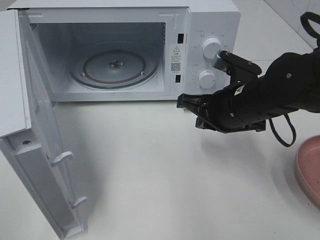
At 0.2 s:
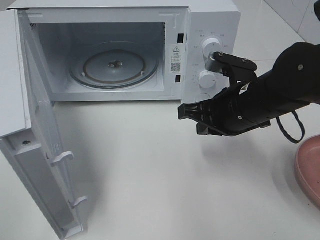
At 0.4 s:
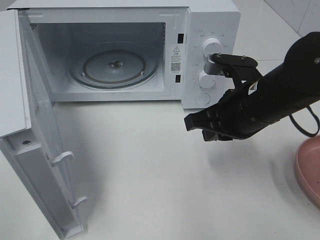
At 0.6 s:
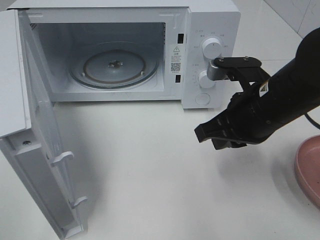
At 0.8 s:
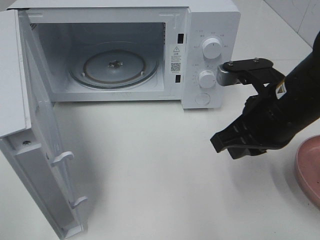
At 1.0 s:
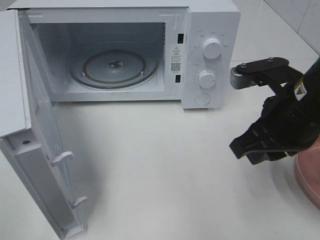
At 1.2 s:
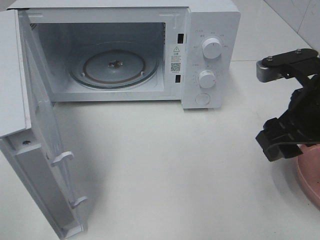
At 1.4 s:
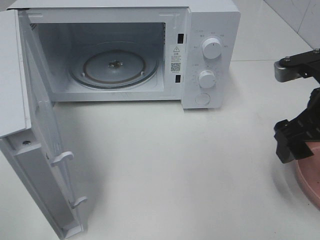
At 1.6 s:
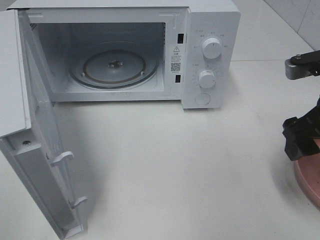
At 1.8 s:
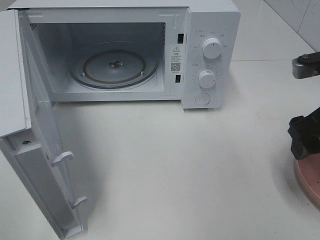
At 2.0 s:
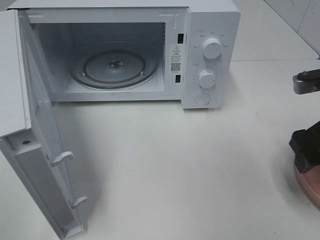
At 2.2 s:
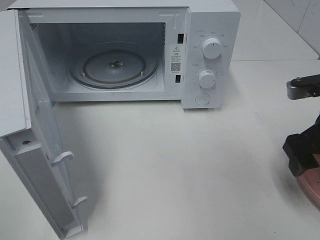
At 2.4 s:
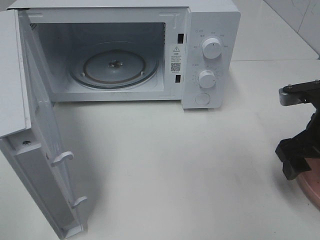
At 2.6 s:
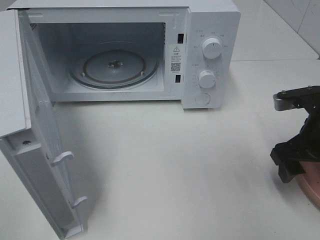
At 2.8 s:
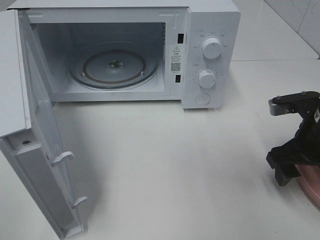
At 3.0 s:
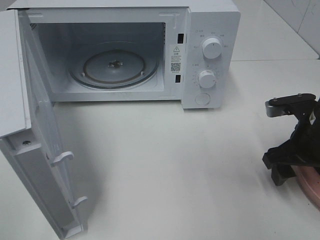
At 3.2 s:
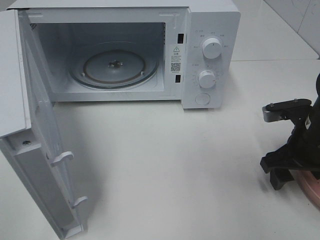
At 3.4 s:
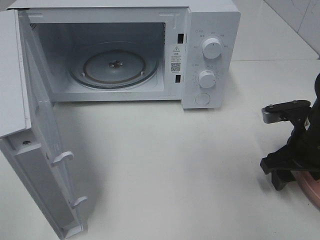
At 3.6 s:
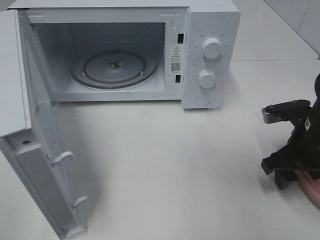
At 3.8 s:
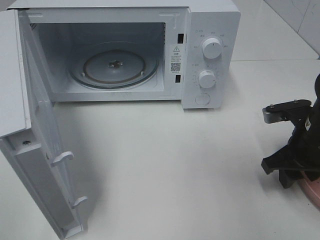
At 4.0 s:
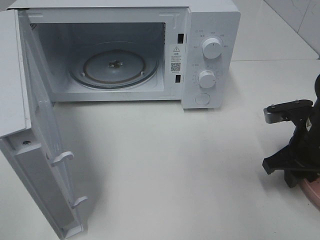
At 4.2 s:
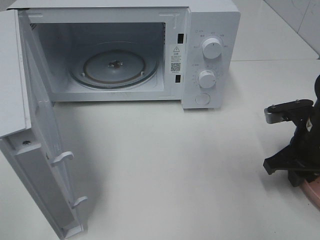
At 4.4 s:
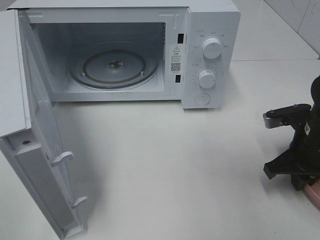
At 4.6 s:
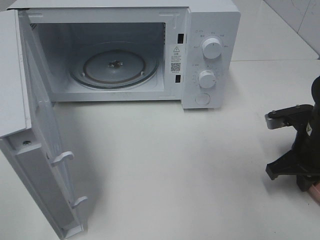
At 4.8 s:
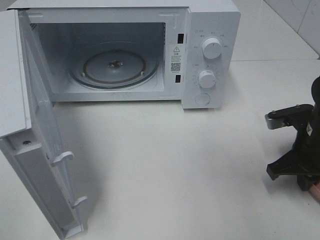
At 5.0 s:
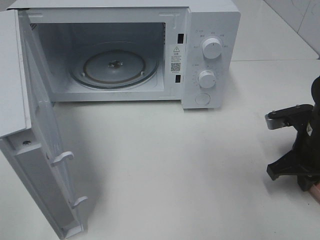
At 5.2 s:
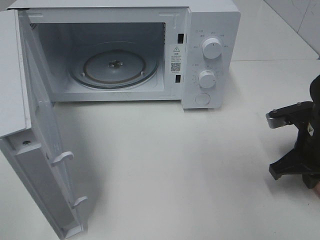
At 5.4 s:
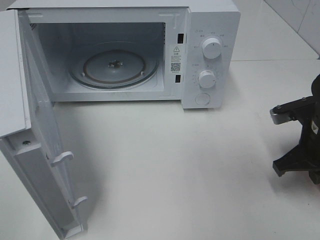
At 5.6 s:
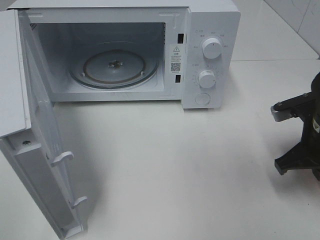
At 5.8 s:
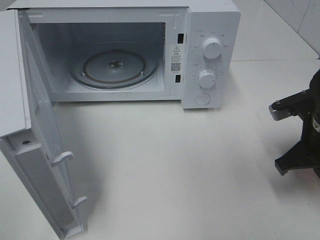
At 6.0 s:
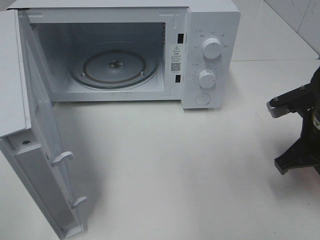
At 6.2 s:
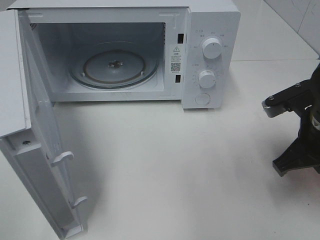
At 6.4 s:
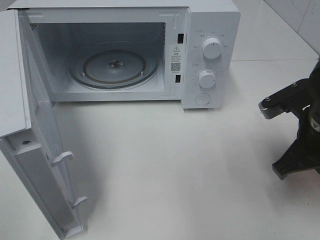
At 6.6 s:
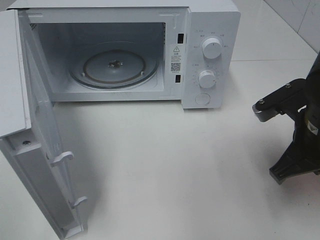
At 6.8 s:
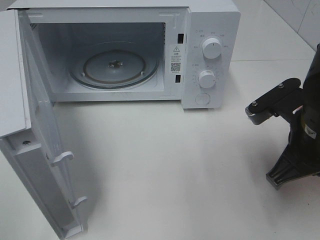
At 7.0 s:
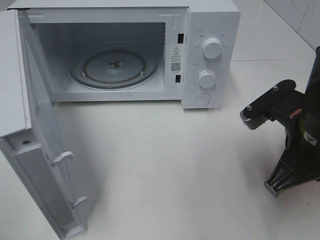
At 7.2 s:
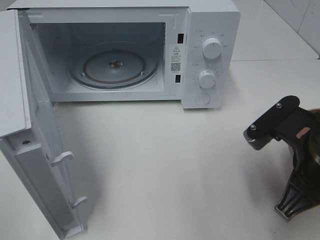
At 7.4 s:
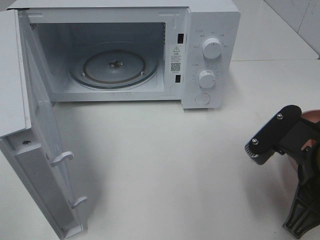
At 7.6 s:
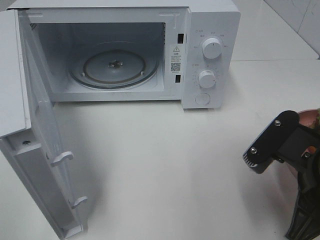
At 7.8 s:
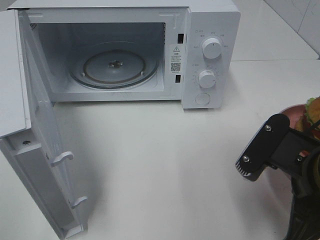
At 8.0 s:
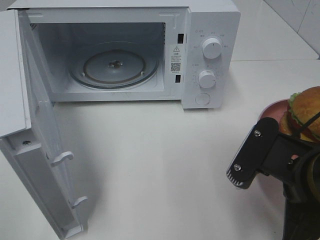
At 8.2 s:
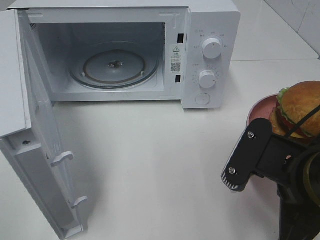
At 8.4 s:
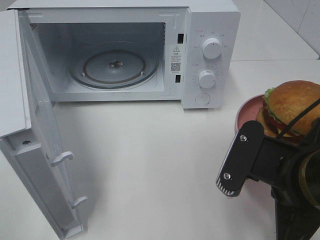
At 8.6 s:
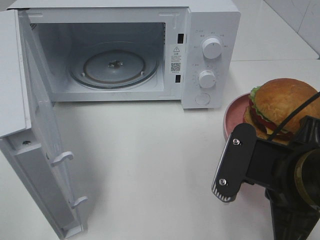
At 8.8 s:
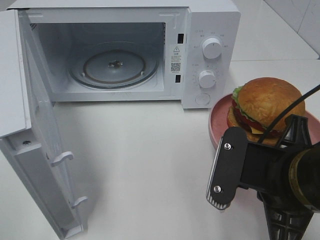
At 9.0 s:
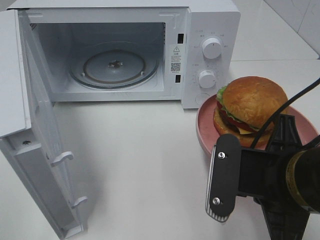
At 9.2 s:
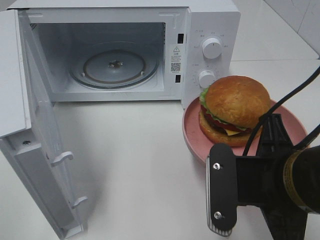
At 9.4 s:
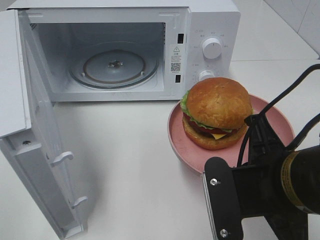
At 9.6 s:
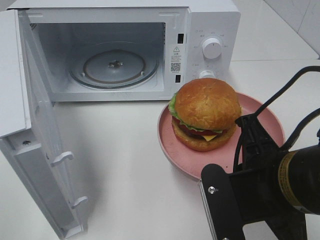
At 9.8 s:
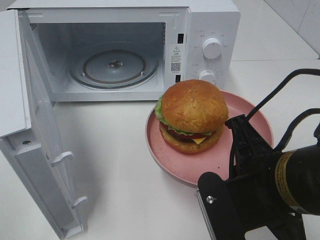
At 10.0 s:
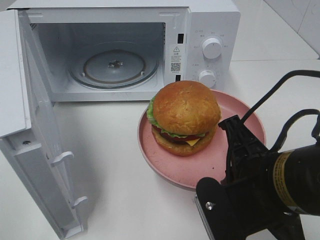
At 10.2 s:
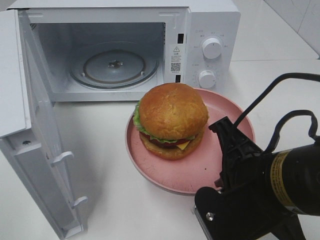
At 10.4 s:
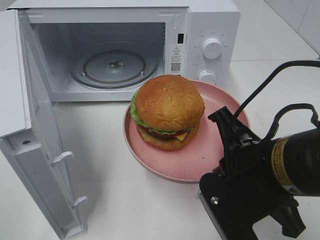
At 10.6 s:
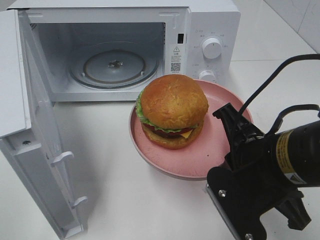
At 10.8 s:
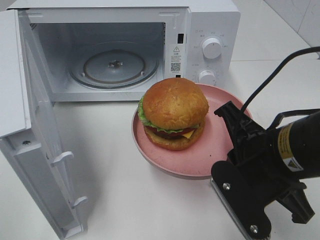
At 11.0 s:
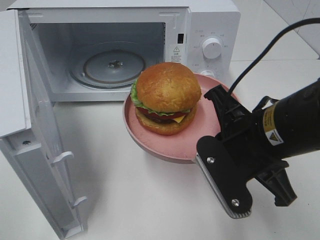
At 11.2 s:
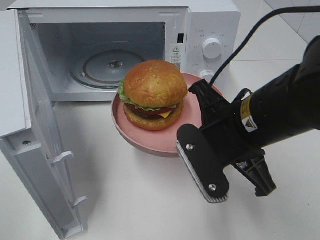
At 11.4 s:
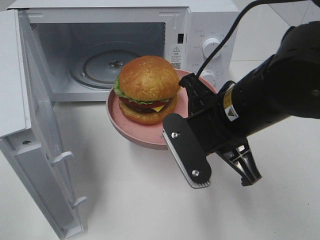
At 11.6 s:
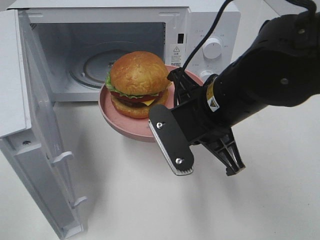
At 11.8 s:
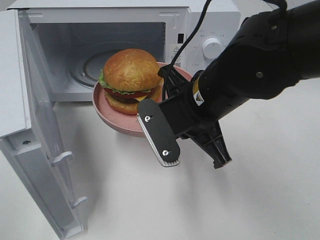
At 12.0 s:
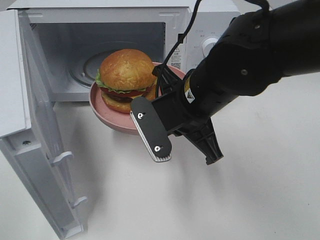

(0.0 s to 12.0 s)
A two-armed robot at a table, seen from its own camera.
Task of the whole recording: Heat the burger.
Step, 0.0 s - 5.0 s: Right hand: grab the plate with the hamburger.
0.0 s - 1.6 s: The right gripper is displaced to the right, upward and backward by about 15 cm, and opens up.
1.6 s - 3.0 s: The right gripper shifts roughly 10 cm downward.
3.0 s - 4.4 s: The right gripper closes.
4.4 s - 6.0 s: The right gripper ends up approximately 5 cm from where it was.
6.0 s - 7.6 s: The right gripper shifts about 10 cm backward and to the left.
10.4 s - 12.0 s: The right gripper shifts roughly 15 cm forward and to the left.

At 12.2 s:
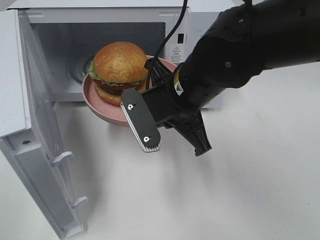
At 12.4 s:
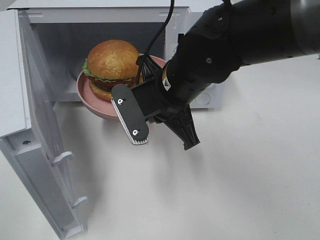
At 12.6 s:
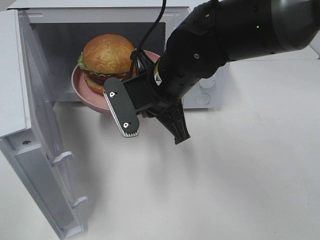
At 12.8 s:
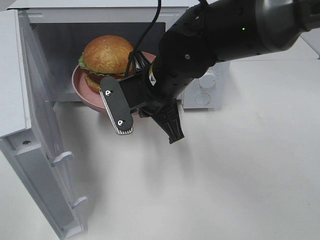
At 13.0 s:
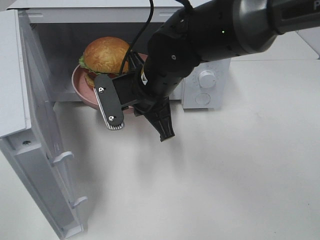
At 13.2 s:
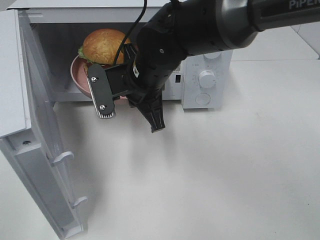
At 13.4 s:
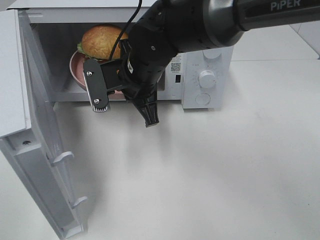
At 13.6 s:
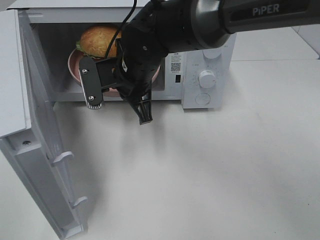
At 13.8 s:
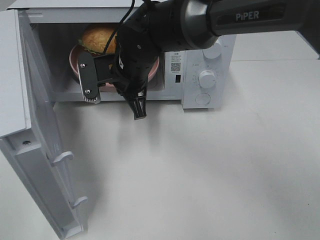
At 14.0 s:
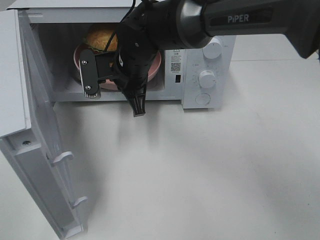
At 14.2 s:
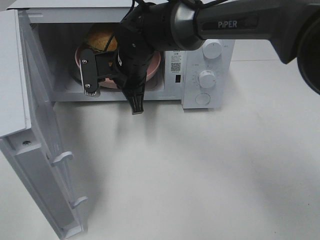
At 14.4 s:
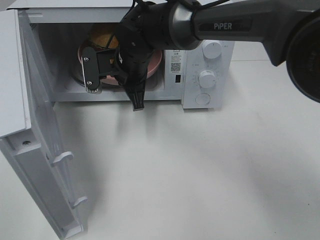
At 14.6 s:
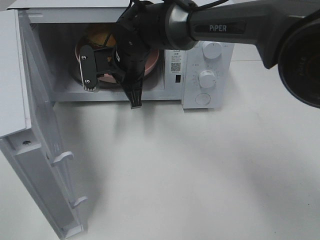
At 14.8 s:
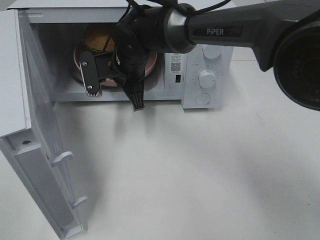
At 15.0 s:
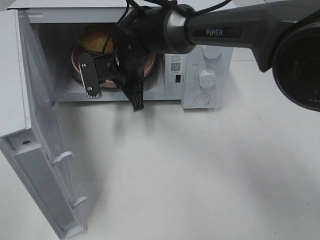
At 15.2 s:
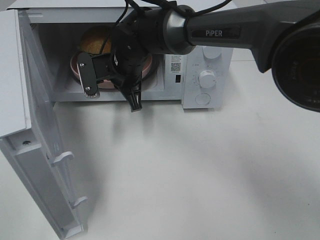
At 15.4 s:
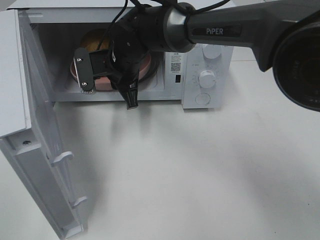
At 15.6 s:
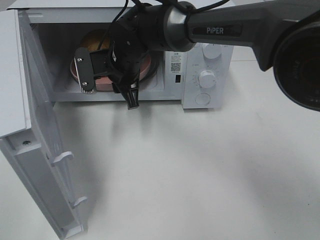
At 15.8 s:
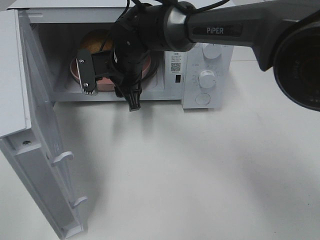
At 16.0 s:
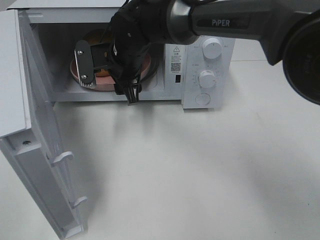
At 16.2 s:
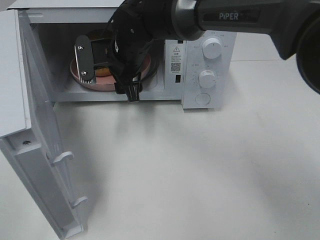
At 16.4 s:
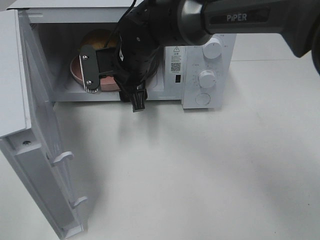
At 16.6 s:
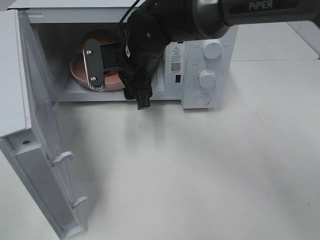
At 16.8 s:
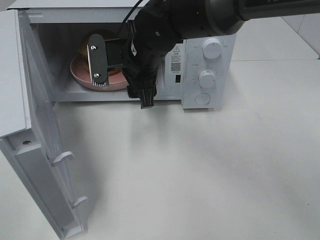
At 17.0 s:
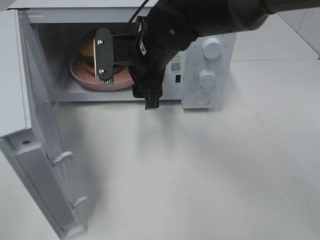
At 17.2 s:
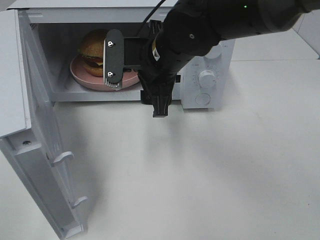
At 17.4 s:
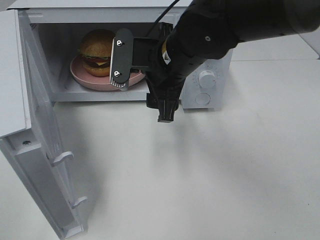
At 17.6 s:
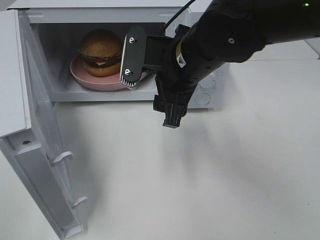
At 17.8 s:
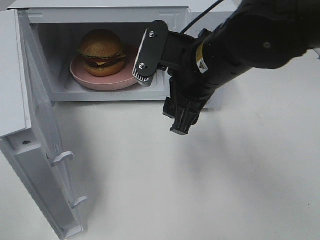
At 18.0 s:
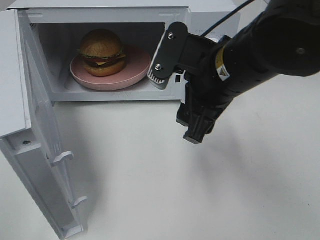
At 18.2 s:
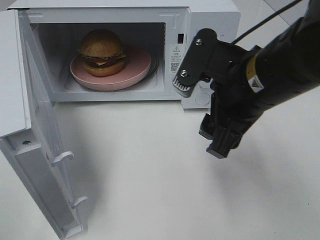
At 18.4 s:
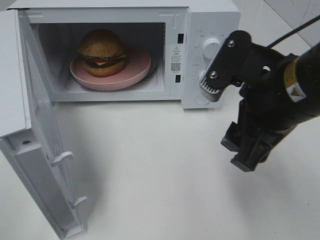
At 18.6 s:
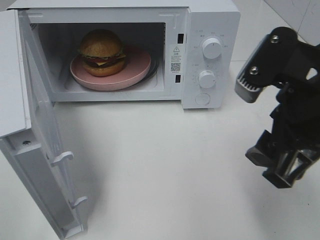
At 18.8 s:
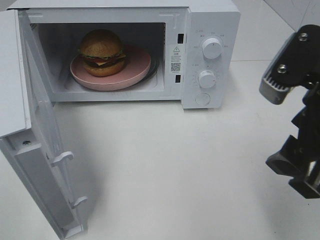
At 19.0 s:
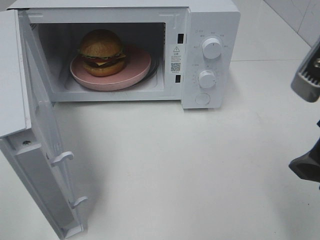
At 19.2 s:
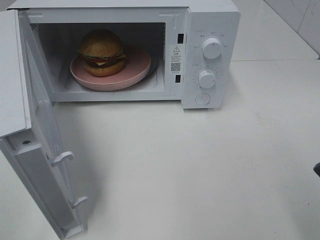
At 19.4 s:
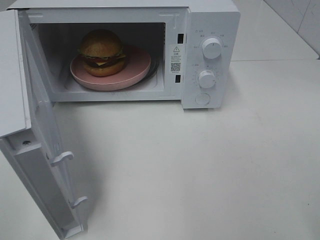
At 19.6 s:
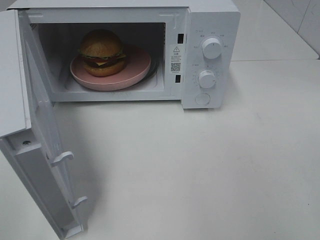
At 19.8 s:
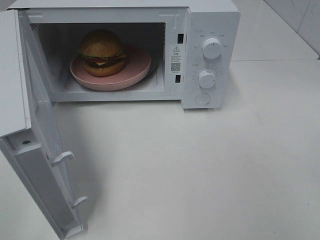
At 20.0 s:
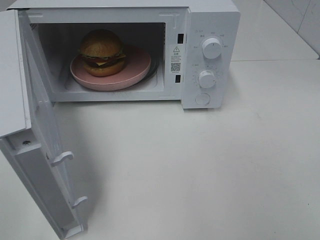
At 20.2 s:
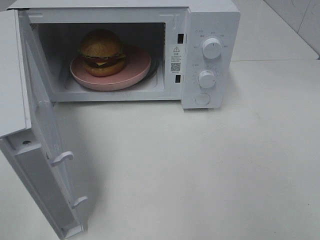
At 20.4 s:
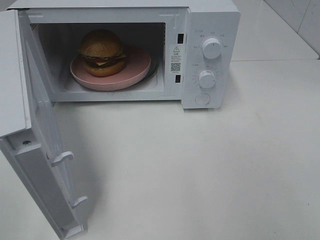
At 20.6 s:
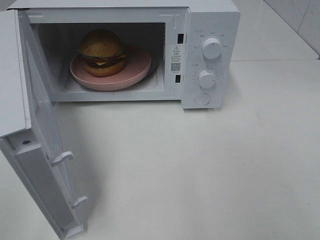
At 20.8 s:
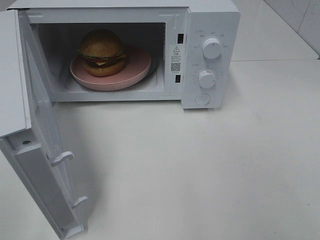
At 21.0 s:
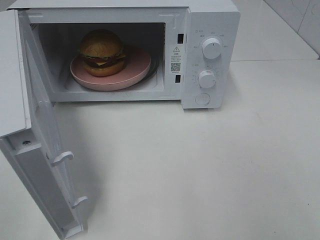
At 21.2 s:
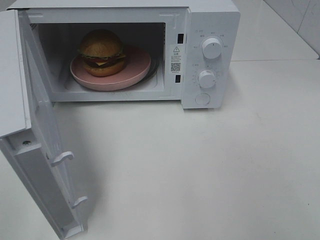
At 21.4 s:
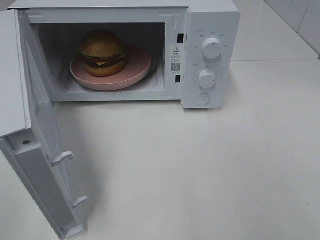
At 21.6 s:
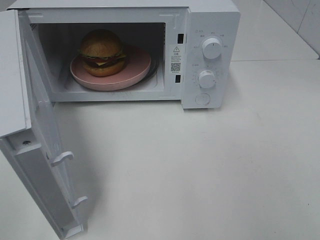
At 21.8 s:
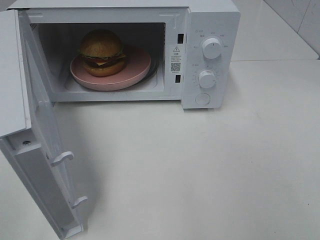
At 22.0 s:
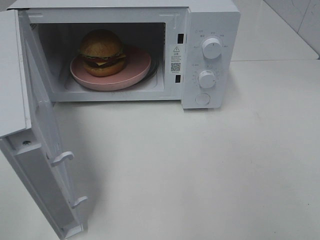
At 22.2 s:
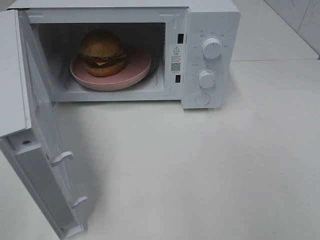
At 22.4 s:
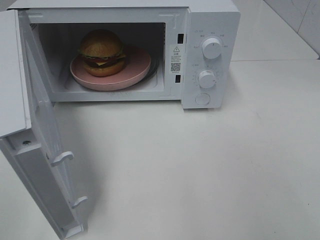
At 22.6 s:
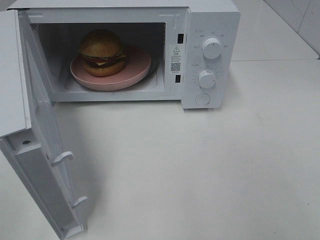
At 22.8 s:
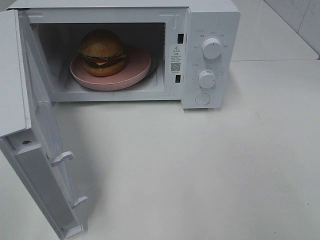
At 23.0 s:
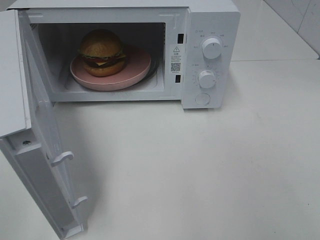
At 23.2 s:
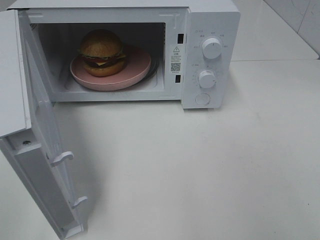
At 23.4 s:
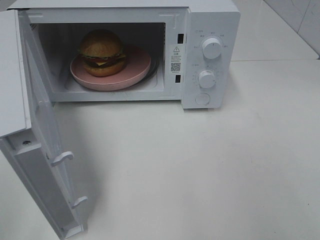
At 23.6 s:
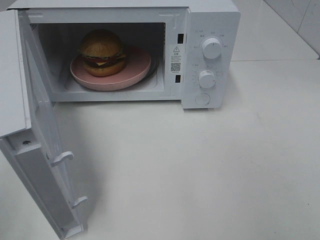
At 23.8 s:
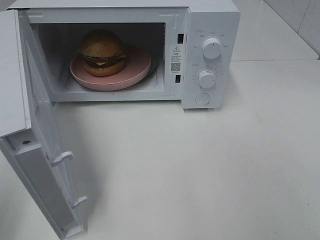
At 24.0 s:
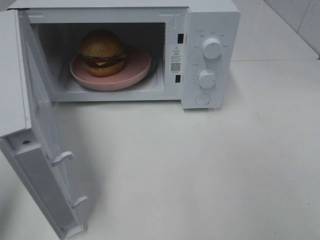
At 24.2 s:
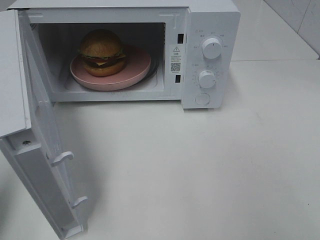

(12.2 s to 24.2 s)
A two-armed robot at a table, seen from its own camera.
Task of the whole recording: Heat the burger.
Step, 12.2 s - 15.4 s: Right hand: place the plate in the microwave.
12.2 s - 13.8 s: The right gripper shifts approximately 10 cm forward and to the left.
13.8 s - 15.2 s: The grippers move only a little.
15.2 s - 16.6 s: The right gripper ends up approximately 5 cm from where it was, and opens.
16.6 s - 18.2 s: The right gripper is displaced backward and to the right by roughly 20 cm.
18.2 s - 19.8 s: The right gripper travels to the right and backward by about 20 cm.
21.2 s - 22.6 s: Both grippers stay put.
22.6 s - 24.2 s: The left gripper travels forward by some 15 cm, and closes its fingers.
